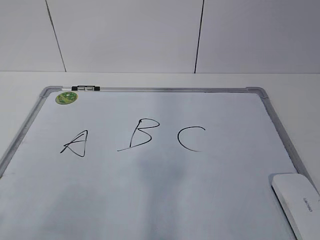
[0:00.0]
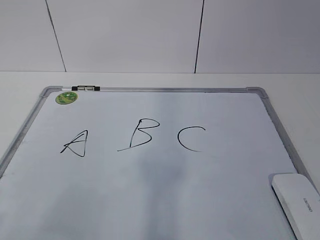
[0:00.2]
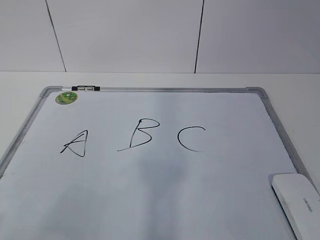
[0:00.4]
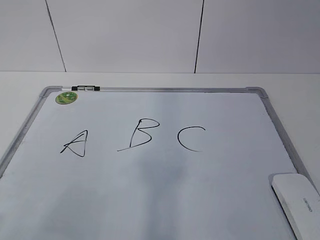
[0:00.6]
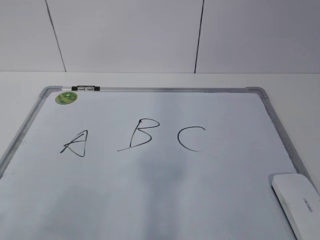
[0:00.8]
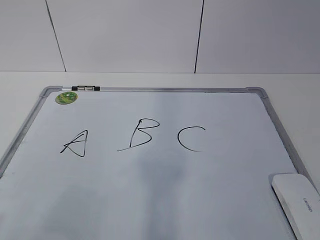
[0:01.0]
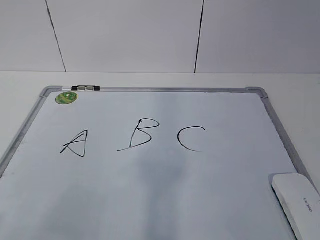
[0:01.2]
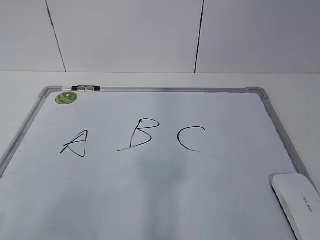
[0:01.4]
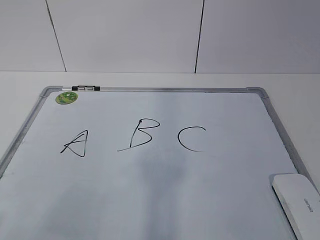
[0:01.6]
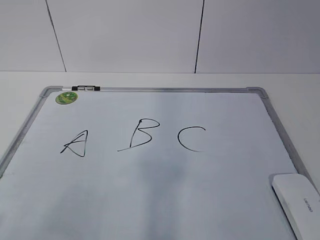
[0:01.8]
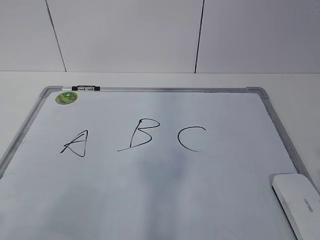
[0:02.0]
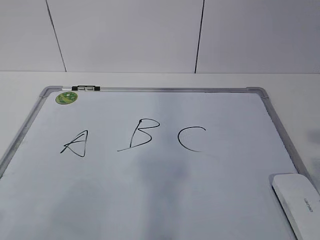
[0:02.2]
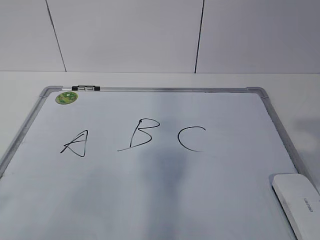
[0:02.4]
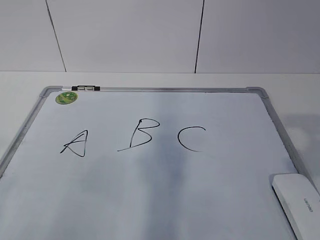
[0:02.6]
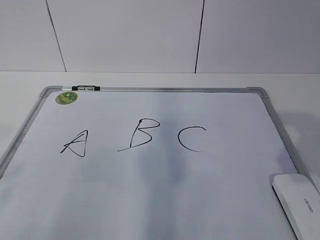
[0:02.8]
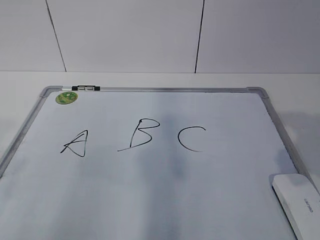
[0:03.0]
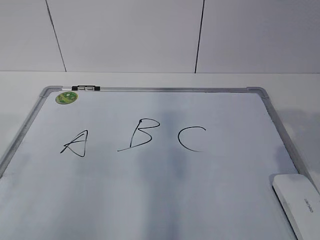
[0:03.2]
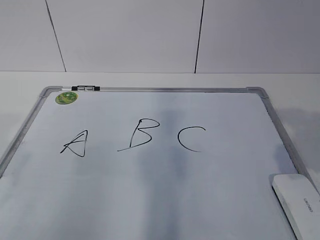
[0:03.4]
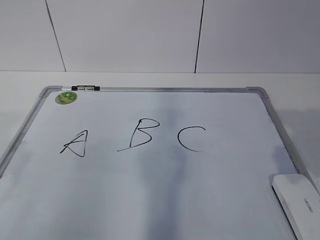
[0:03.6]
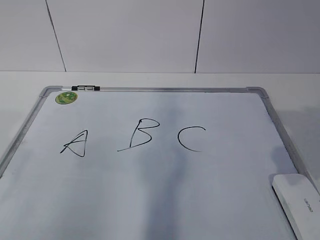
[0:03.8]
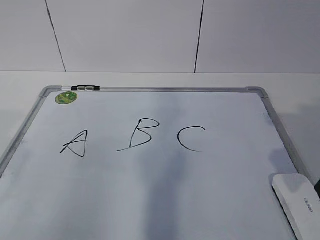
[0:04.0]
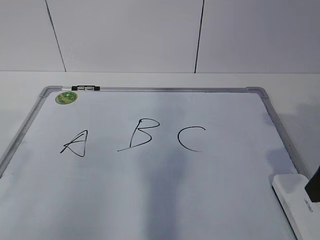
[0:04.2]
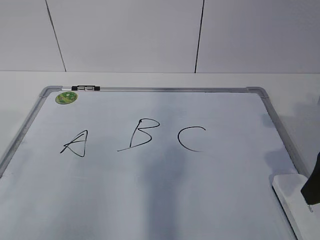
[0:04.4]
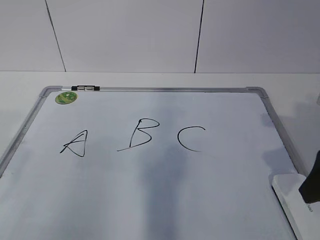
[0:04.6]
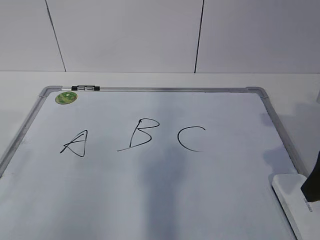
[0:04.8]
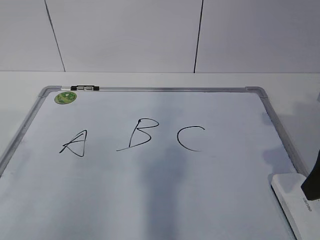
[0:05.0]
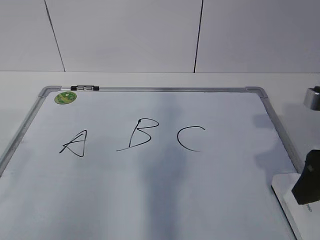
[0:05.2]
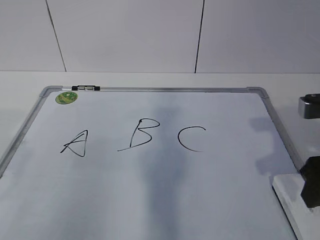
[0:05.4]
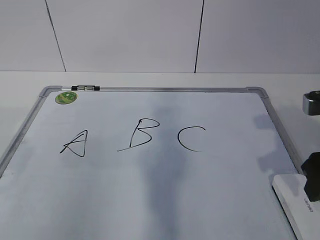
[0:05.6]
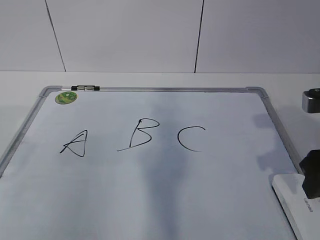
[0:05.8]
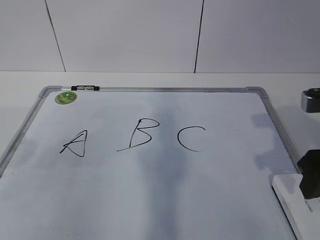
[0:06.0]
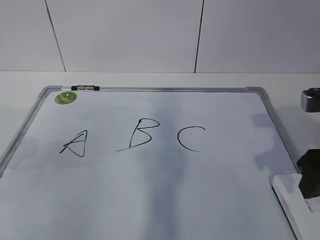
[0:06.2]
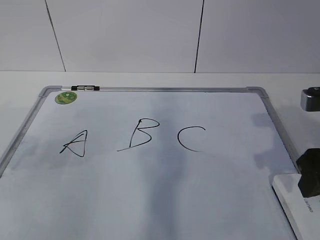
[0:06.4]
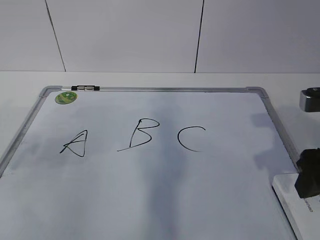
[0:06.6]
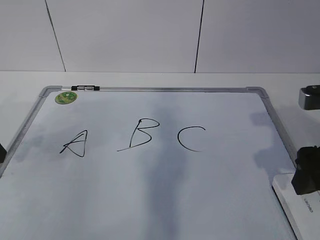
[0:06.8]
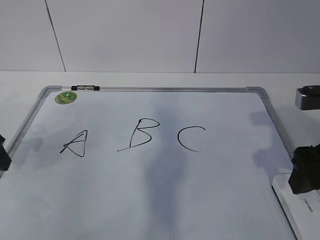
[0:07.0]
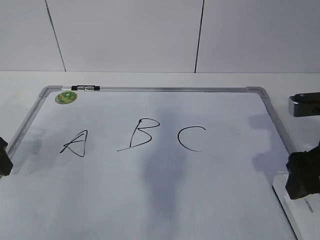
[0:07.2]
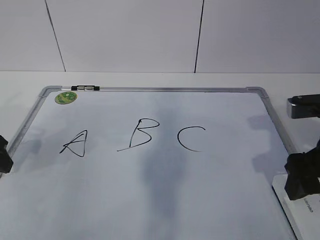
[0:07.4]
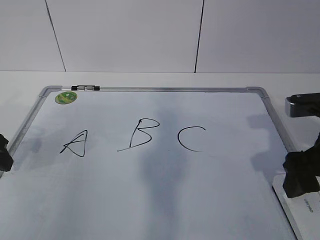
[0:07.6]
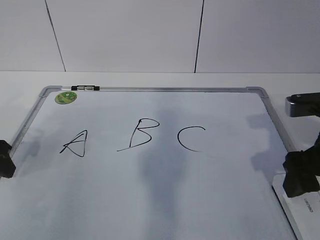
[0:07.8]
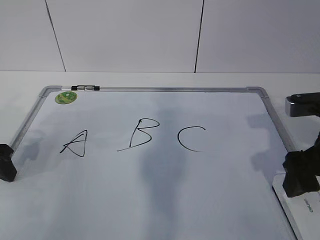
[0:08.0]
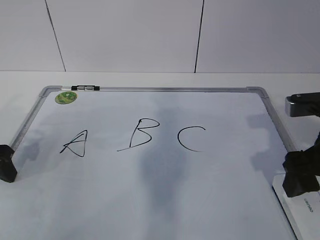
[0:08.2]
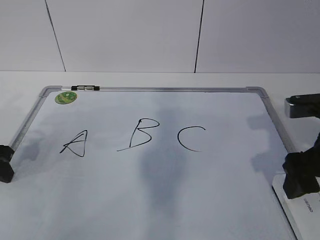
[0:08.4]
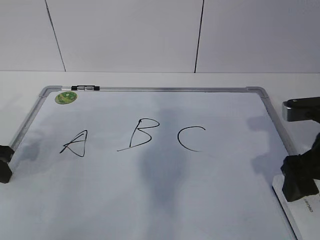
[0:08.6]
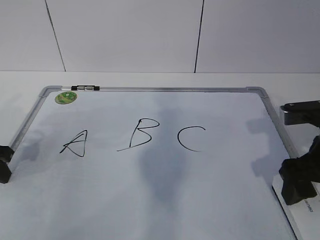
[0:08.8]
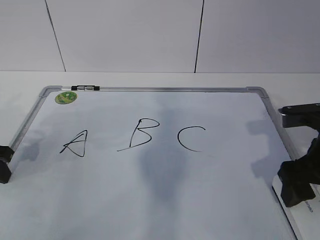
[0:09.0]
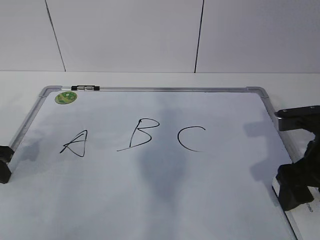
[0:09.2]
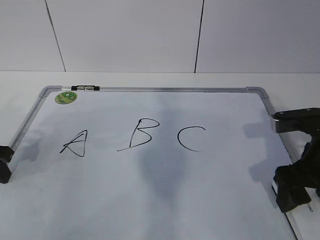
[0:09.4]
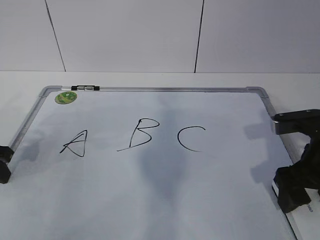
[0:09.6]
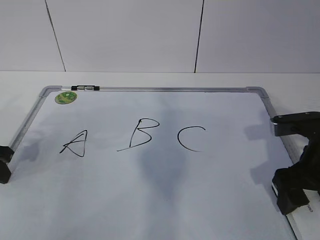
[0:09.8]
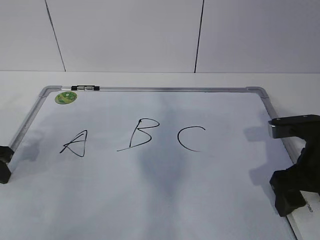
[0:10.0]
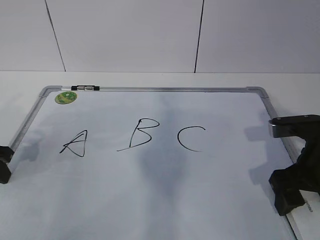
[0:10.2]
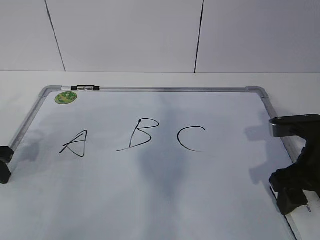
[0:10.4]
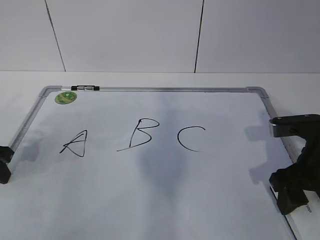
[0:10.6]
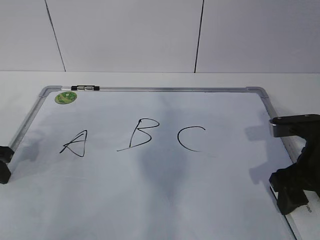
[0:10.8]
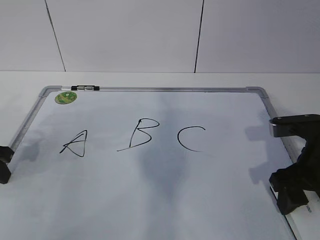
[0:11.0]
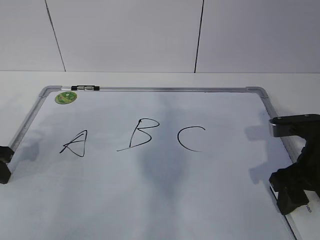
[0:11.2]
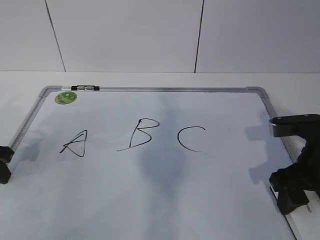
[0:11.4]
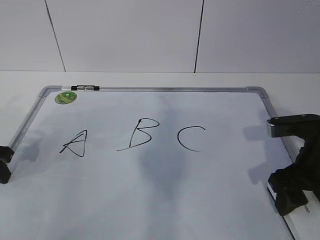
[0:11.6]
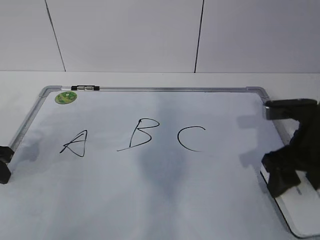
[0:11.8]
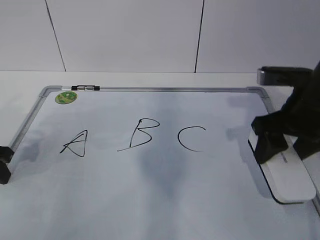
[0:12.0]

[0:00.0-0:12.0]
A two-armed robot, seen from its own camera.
Task of the whole recording: pick up the eraser on the blackboard and erase the letter "B".
Step, 0:00.0 to 0:07.0: Hold the drawing board steady with your left hand.
Step, 0:07.4 to 0:08.6: Grab the eraser with your right hand.
0:01.6 to 0:03.0: The right gripper is displaced forward by roughly 15 cm, and opens up.
0:03.0 to 0:04.4: The right gripper travels forward and downward by roughly 10 cm.
0:04.4 to 0:06.0: The right gripper closes up.
0:06.0 to 0:07.6: The left gripper heads forward and downward, covering approximately 10 cm; the right gripper opens.
0:07.6 to 0:09.0: The left gripper closes its fingers.
0:09.0 to 0:10.4: The right gripper closes its fingers.
0:10.4 to 0:12.0: The right gripper heads upward, covering approximately 5 cm.

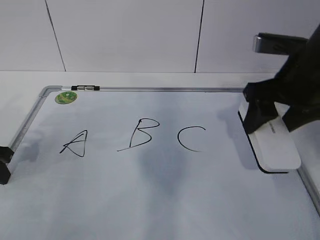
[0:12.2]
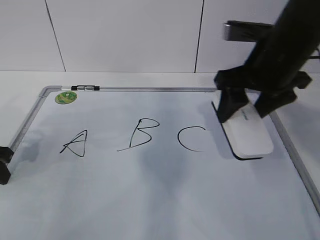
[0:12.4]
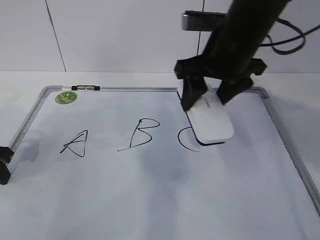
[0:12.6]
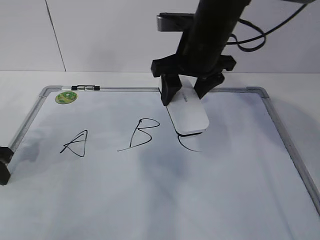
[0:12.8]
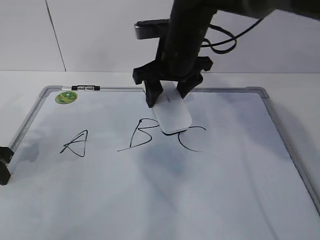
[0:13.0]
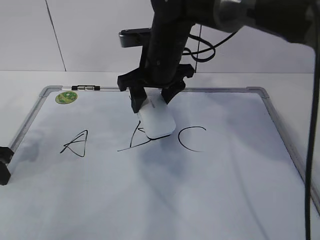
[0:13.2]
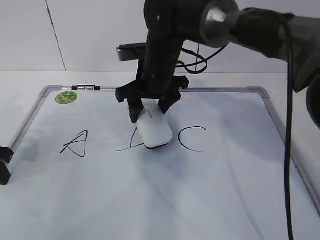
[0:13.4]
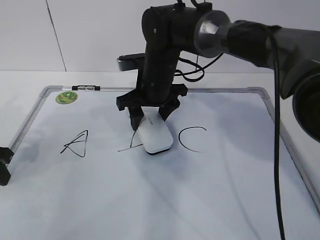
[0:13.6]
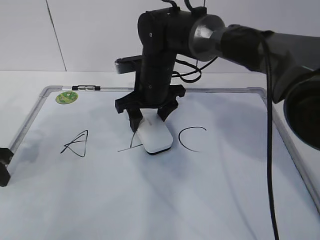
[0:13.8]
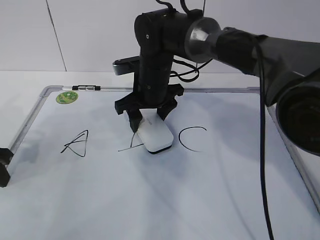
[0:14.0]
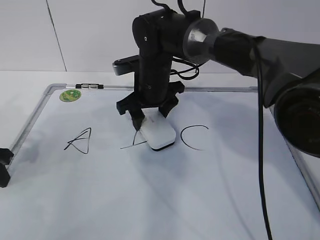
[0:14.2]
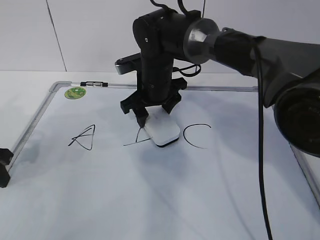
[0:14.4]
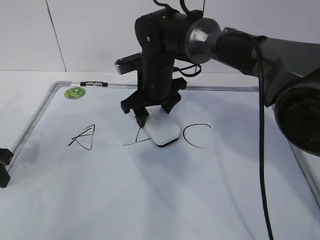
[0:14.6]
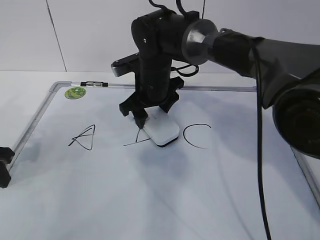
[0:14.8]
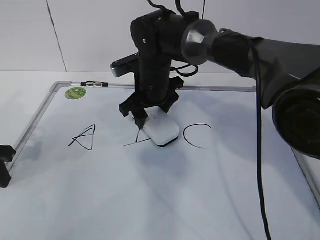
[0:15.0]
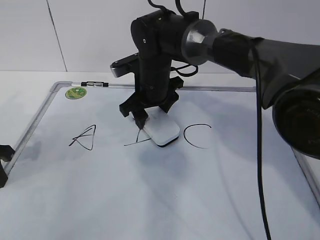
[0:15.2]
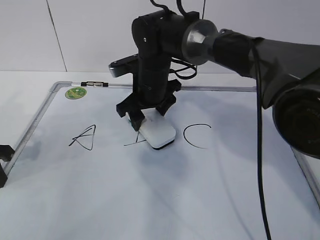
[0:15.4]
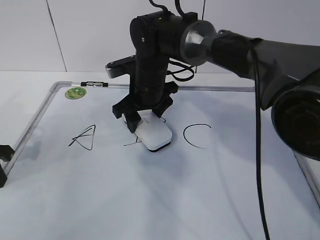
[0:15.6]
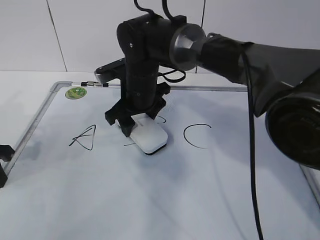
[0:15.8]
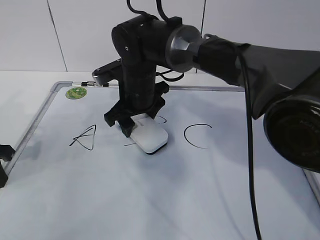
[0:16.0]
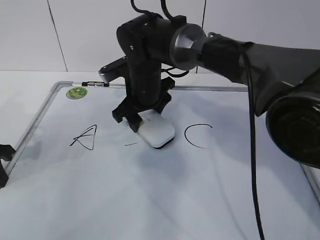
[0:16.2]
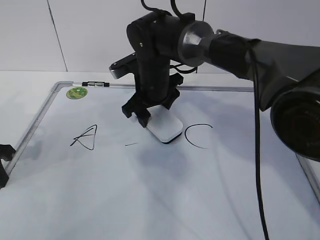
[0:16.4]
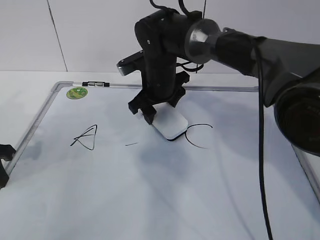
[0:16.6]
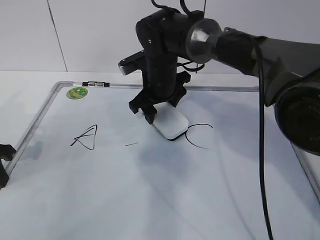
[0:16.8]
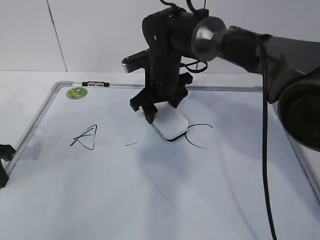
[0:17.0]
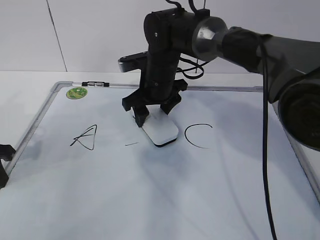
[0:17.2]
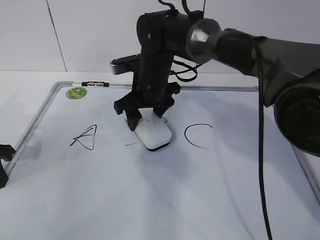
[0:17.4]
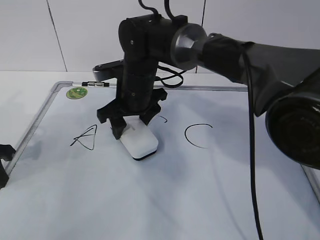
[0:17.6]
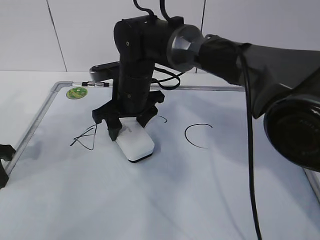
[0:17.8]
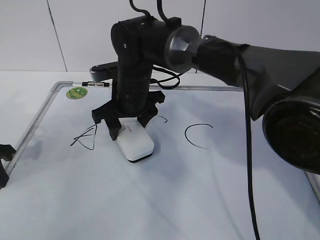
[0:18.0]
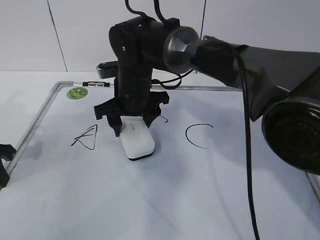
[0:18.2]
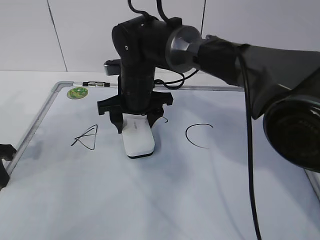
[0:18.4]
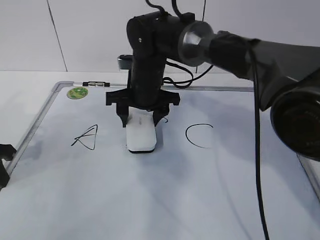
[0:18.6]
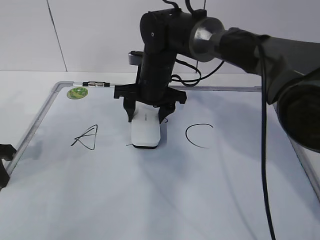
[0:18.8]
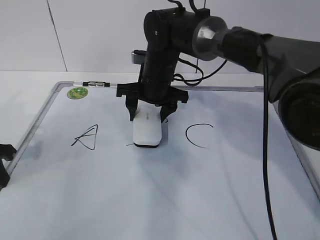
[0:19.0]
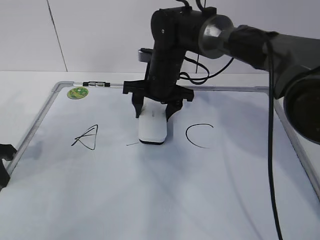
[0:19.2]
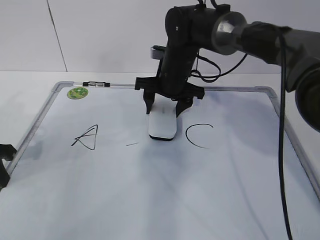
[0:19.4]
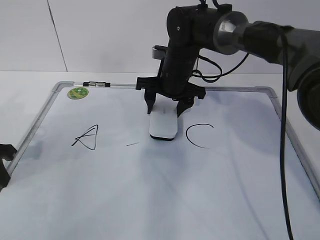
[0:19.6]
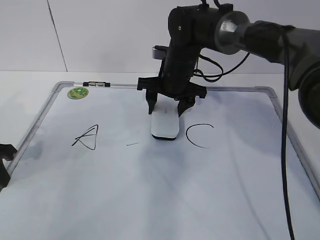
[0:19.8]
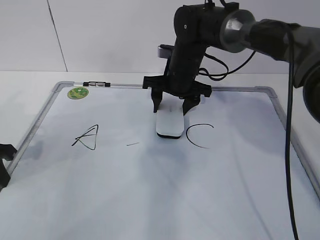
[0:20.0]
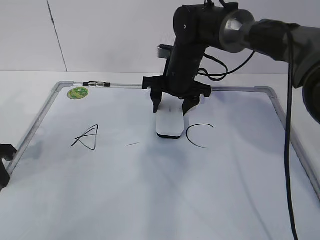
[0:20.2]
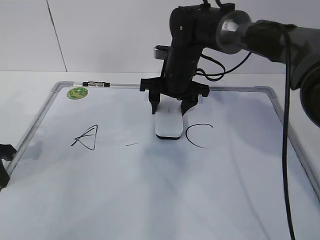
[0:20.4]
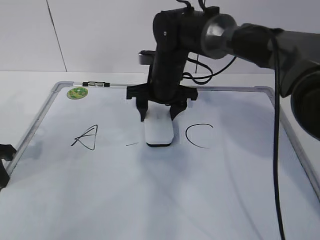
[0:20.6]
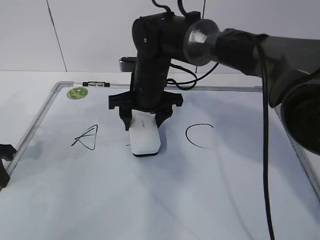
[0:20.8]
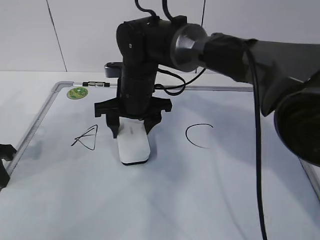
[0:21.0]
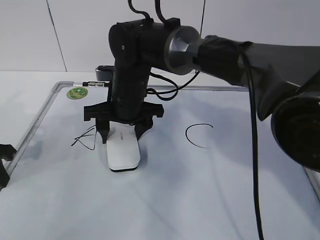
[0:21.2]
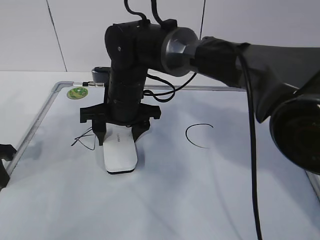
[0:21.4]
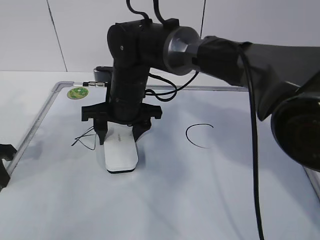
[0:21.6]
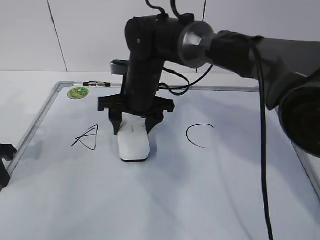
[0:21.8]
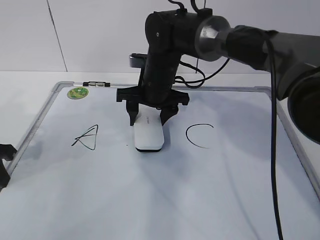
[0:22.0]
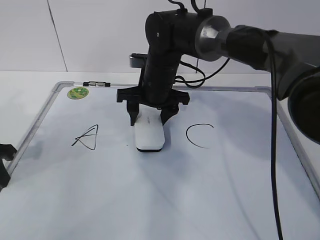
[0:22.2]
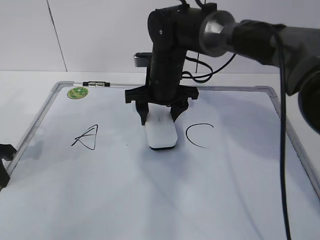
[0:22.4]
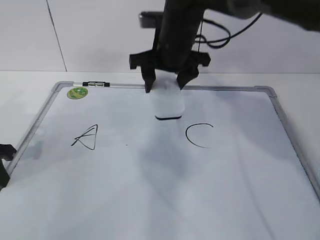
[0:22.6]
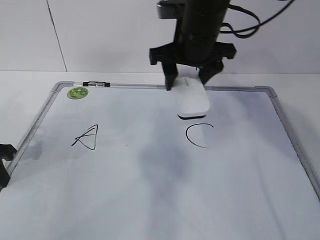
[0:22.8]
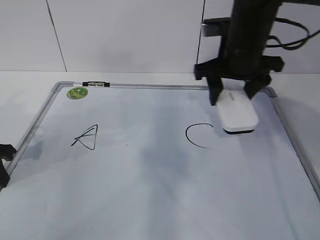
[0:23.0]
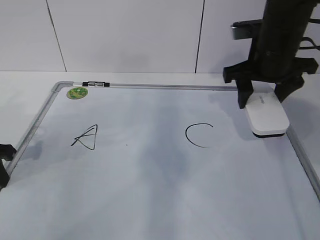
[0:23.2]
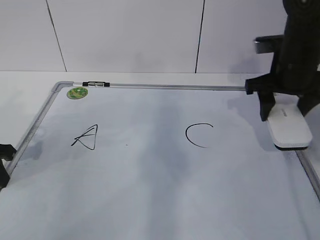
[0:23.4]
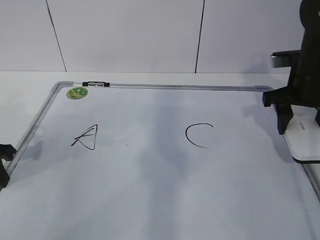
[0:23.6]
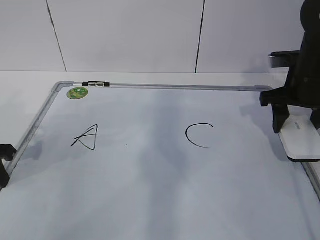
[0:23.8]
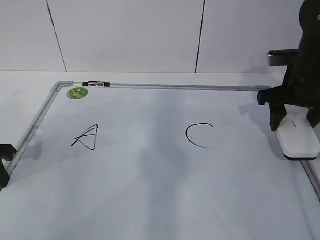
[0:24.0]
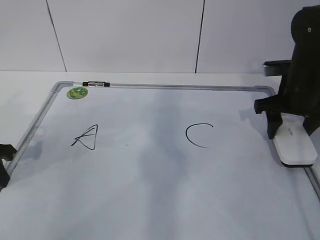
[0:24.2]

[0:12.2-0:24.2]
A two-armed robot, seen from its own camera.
Task of the whole recording: pick up the eraser on the blackboard and erase the letter "B".
Step, 0:12.2 to 0:18.4: Erase the letter B with your right hand.
Step, 0:18.6 to 0:21.2: Put down the eraser with your right hand.
0:12.2 to 0:13.8: The right gripper moves to the left, forward and downward, roughly 25 cm.
0:13.8 to 0:15.2: The left gripper closes.
0:15.2 to 0:16.6: The grippers move only a little.
0:16.6 to 0:18.2: The right gripper ends up about 5 cm from where it was.
0:18.2 to 0:19.8: The right gripper heads to the right and forward, covering about 10 cm.
0:19.8 to 0:21.2: The right gripper heads to the left and backward, covering some 10 cm.
0:21.2 to 0:22.6: The right gripper heads to the right and upward, covering roughly 10 cm.
0:22.6 to 0:24.2: The right gripper moves to the right, roughly 20 cm.
